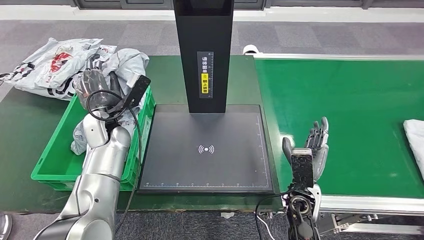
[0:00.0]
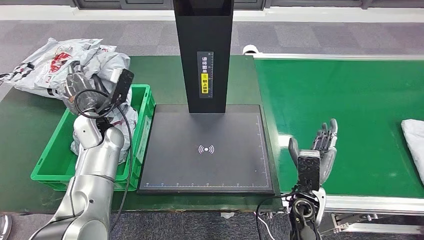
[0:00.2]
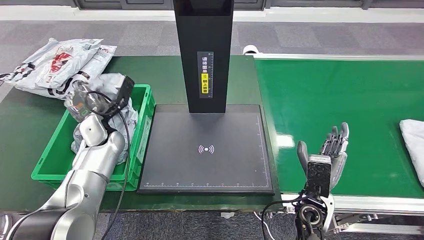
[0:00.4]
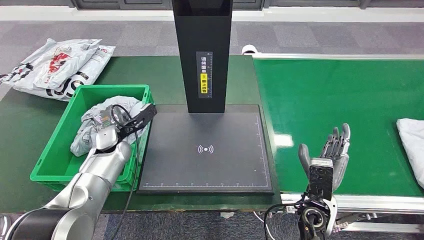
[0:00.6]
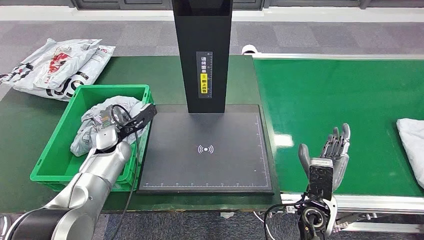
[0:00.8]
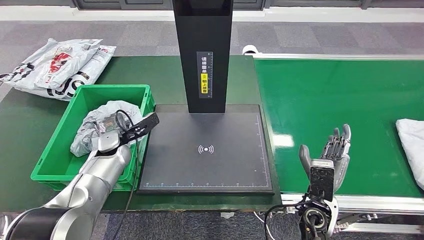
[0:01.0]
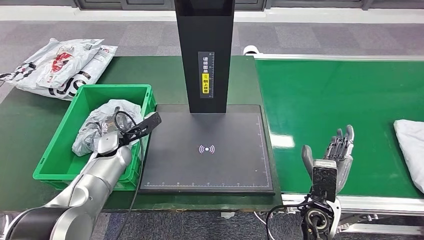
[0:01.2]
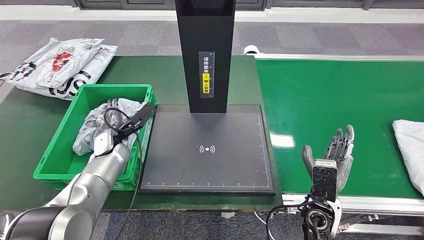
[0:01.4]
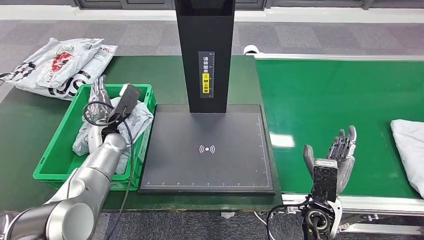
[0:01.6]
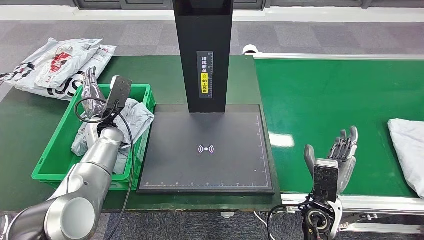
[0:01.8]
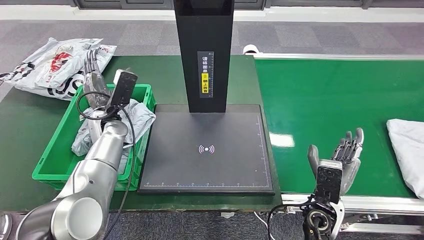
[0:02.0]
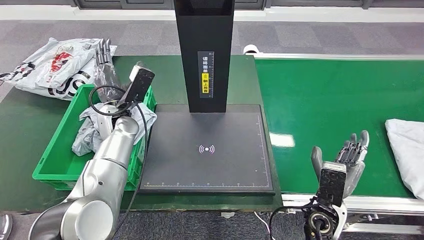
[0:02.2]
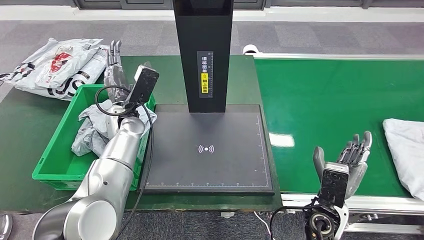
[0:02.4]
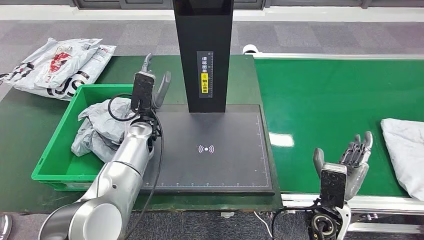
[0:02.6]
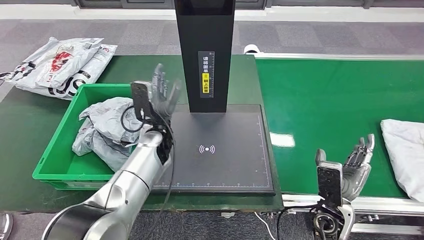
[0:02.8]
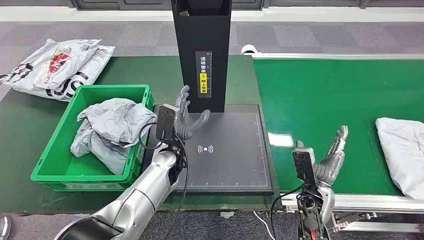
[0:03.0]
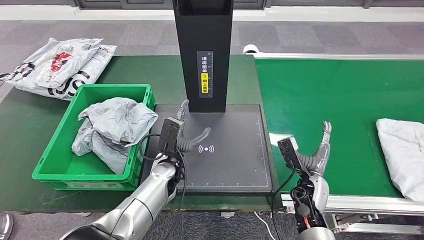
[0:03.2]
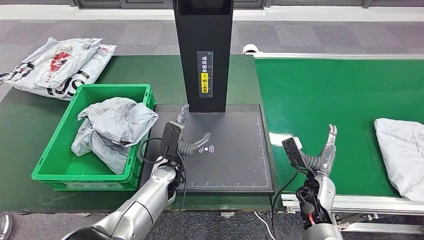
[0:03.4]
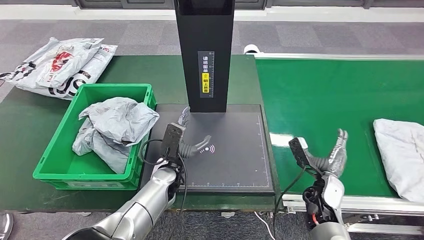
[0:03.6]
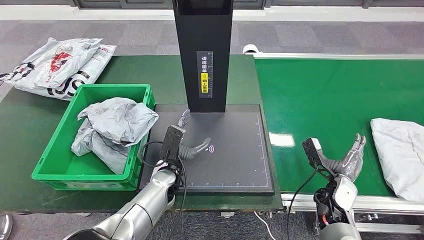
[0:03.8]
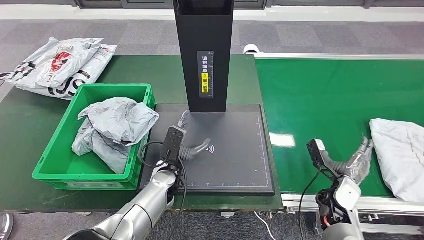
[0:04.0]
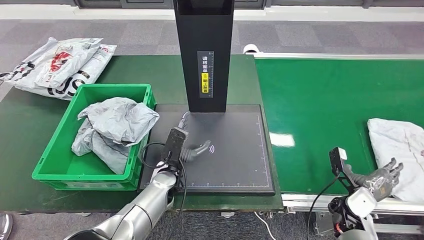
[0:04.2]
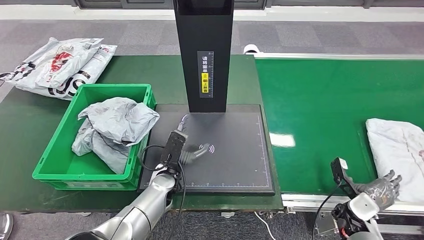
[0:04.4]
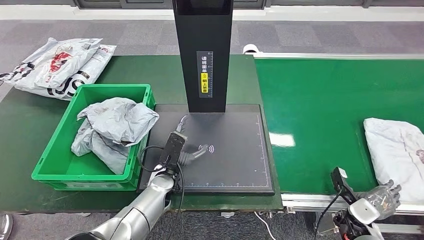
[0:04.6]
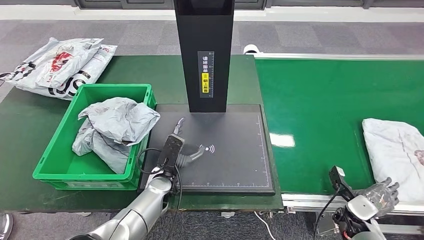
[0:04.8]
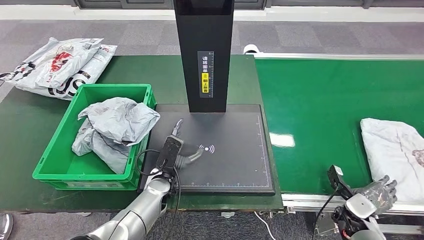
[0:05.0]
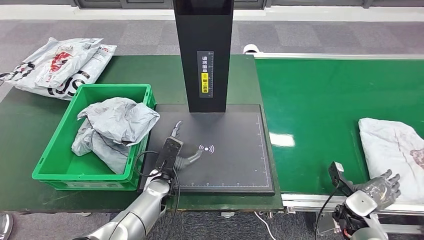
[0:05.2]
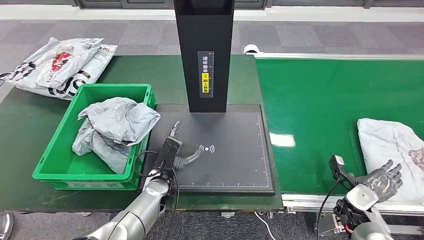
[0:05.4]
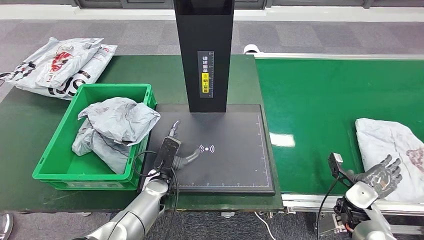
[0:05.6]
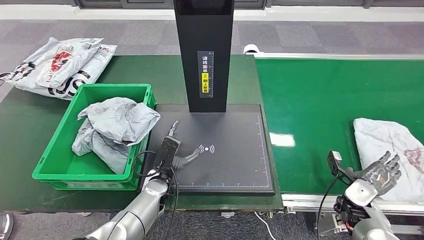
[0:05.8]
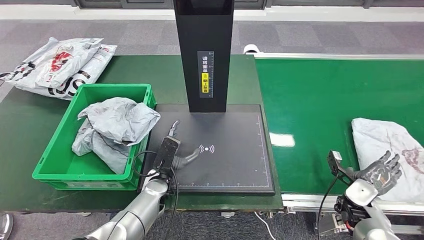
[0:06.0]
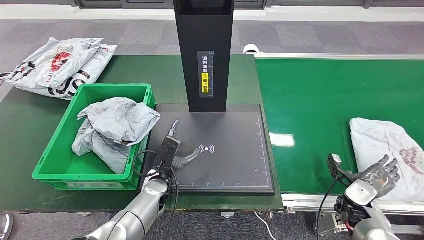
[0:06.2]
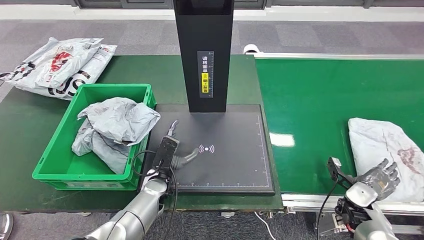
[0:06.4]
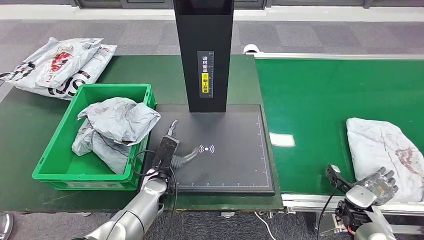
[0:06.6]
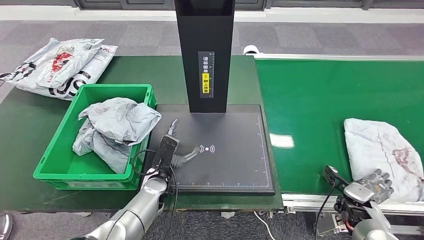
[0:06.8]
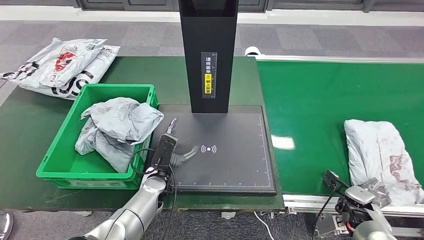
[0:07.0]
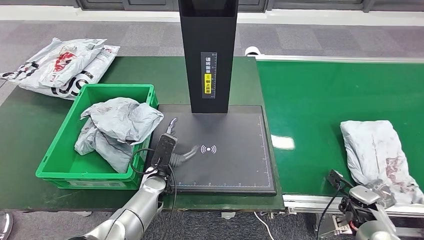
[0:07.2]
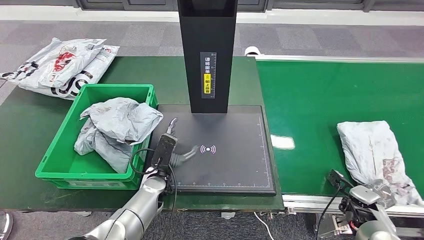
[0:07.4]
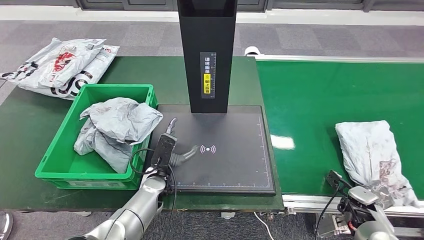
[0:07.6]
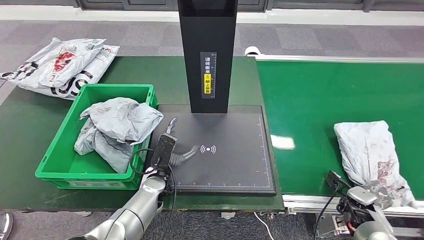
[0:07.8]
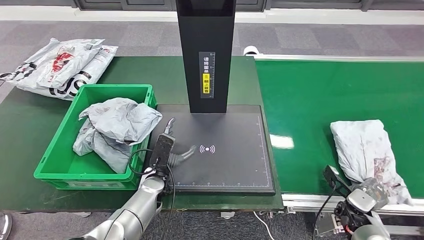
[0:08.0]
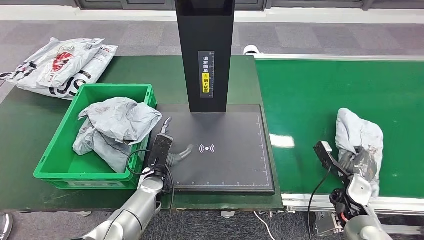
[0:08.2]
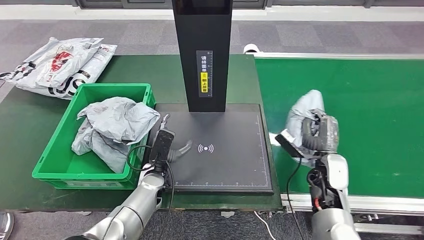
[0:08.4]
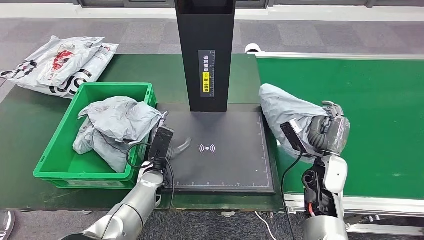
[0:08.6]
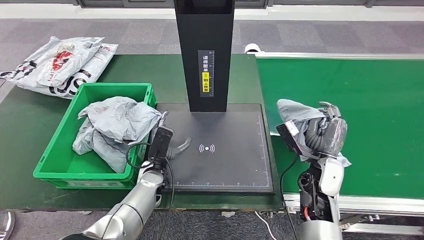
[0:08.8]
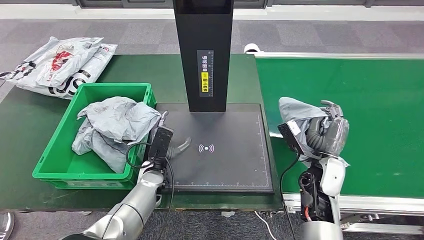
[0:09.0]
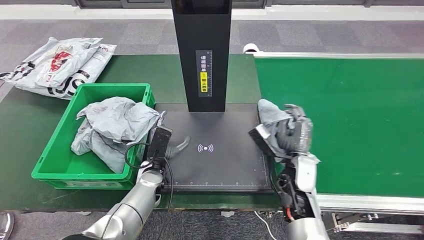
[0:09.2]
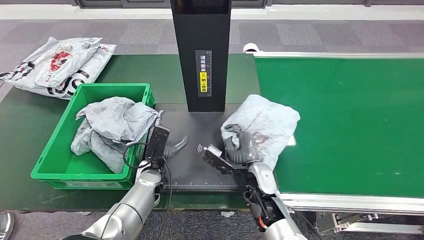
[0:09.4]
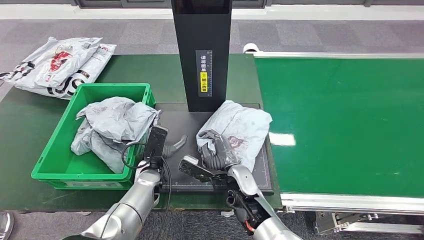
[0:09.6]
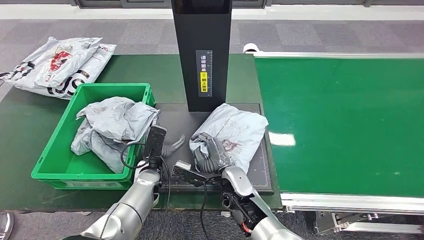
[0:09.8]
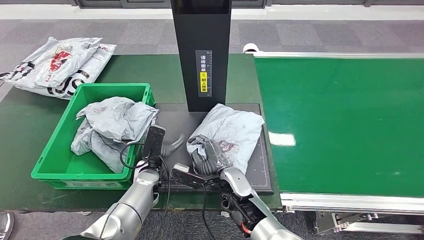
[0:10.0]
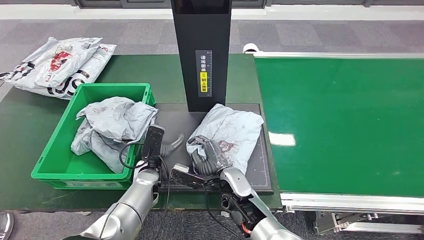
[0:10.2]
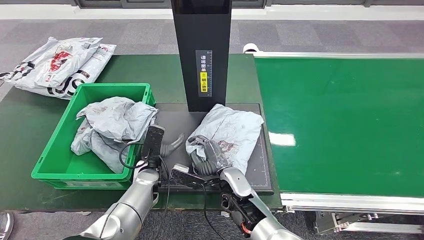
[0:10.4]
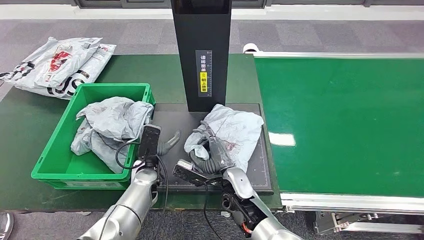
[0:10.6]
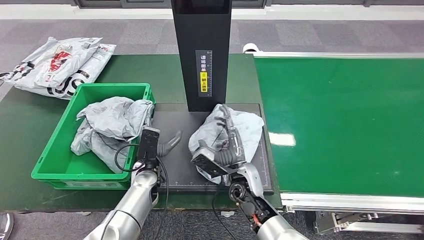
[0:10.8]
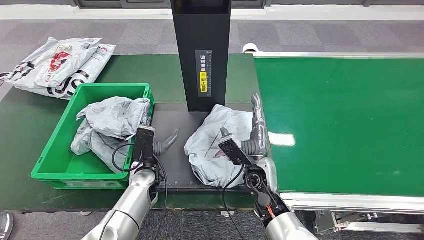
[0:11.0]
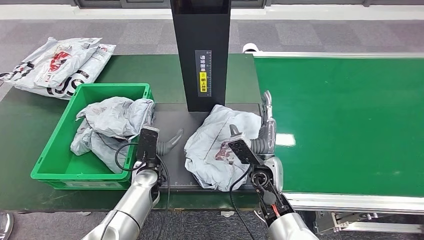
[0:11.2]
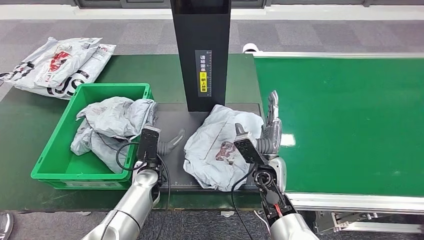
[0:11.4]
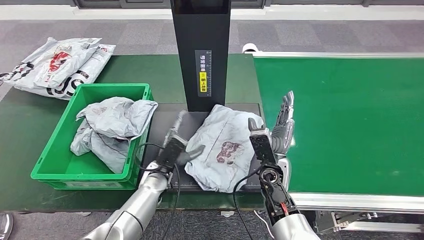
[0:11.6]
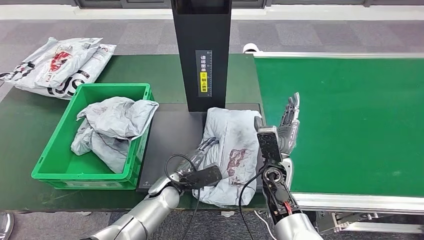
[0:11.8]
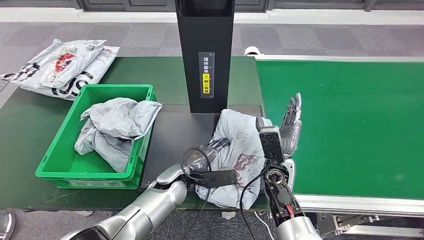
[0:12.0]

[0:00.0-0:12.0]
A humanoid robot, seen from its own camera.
Step, 0:00.0 to 0:00.2: Pick up the parcel from the inbound machine.
Step, 0:00.4 to 0:02.4: Place the parcel into the delivery box.
Step, 0:02.6 to 0:08.6: Pick up the parcel from the conveyor belt.
Step, 0:08.8 to 0:11.4: Place the parcel onto the inbound machine.
0:04.4 to 0:06.0: The hands make only small movements.

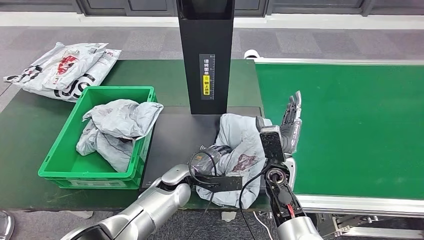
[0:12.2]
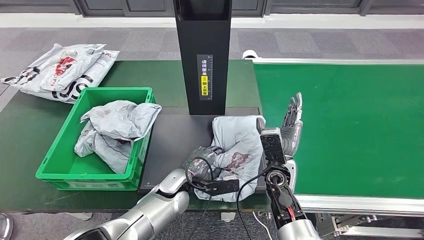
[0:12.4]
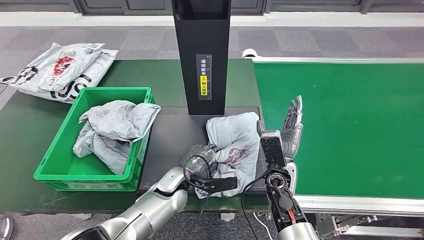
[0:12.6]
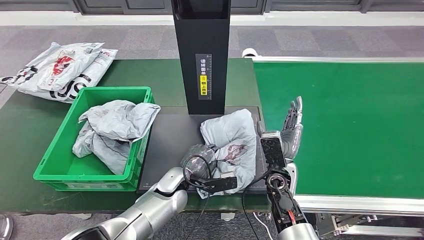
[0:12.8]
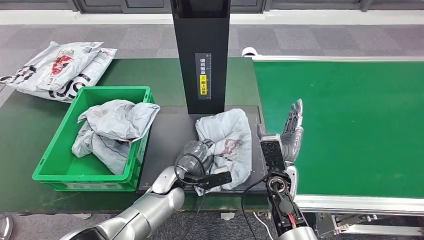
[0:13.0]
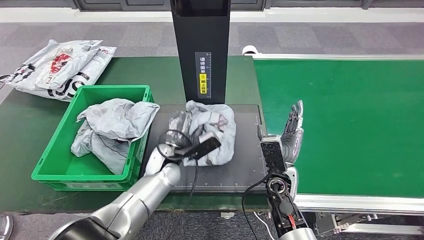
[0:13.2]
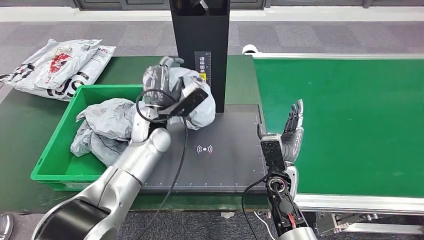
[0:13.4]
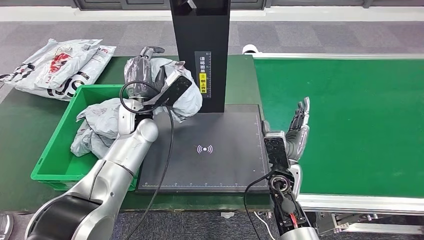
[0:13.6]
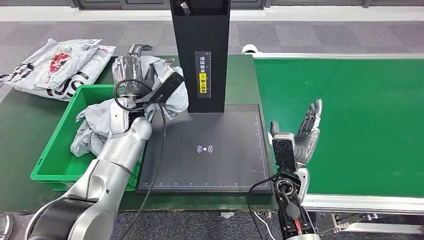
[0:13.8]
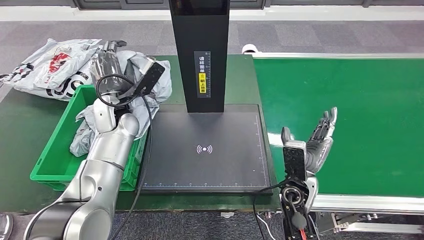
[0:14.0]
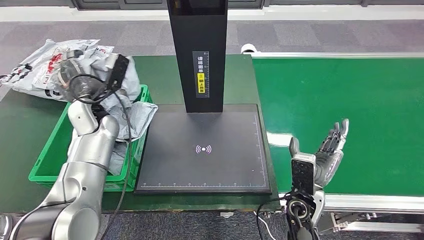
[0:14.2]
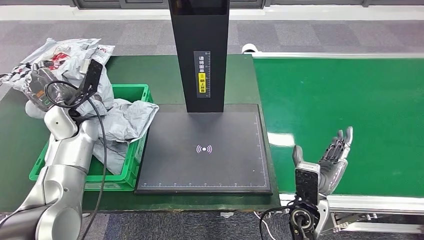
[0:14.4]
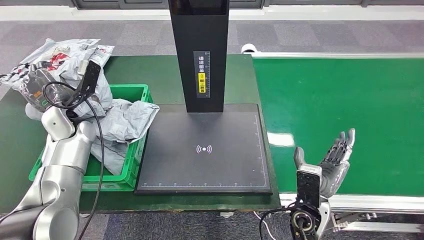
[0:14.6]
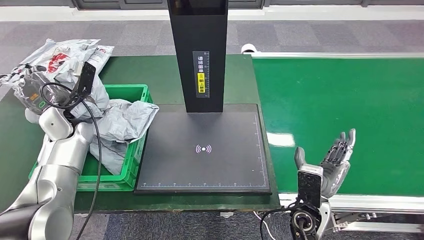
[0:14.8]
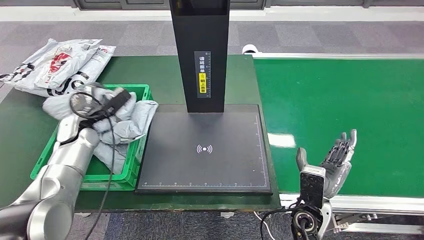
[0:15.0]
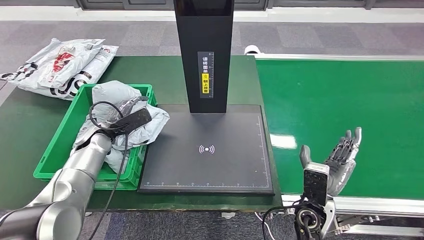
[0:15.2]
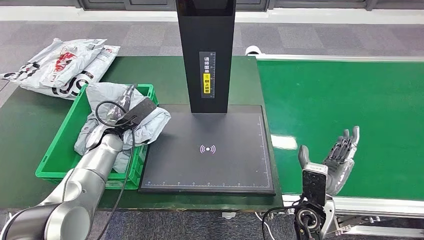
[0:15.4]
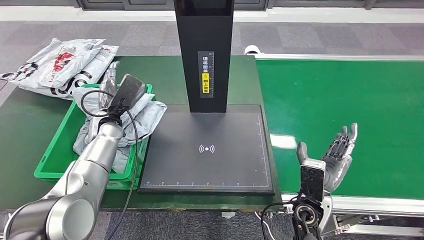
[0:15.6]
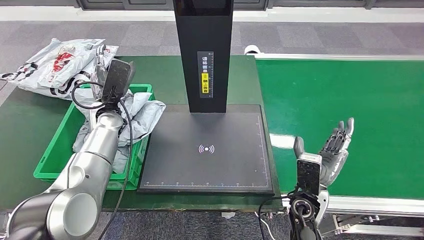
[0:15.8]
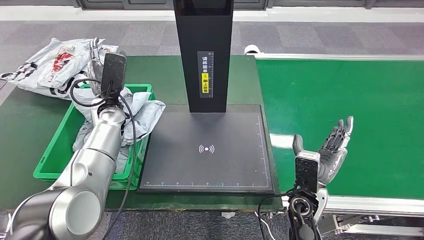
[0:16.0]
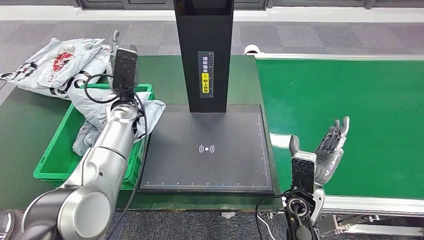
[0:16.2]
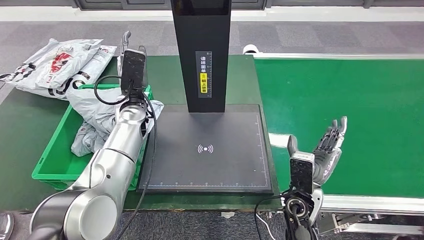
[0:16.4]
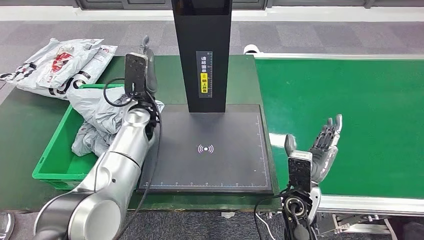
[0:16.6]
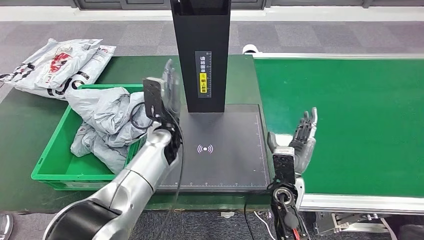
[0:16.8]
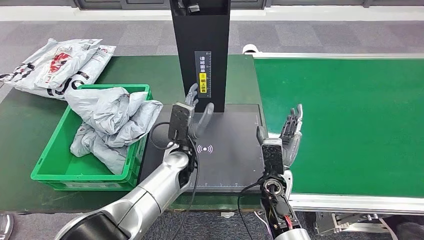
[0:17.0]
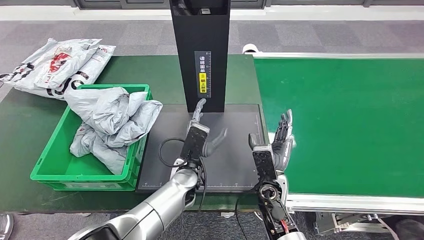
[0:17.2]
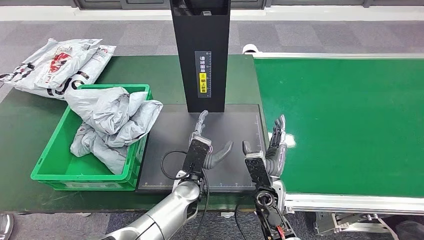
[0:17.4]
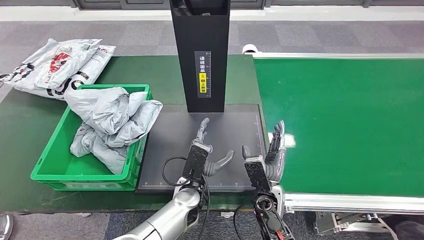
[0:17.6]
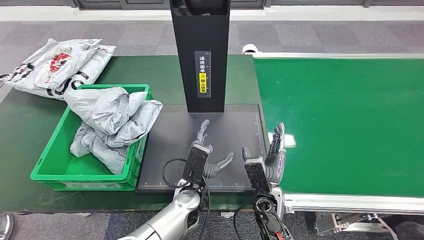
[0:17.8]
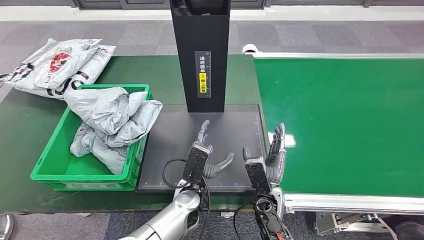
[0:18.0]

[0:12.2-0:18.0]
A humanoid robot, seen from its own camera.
Step, 0:12.2 to 0:13.6: Pick up the parcel from the inbound machine.
Step, 0:13.8 to 0:18.0: Place the parcel into the delivery box.
